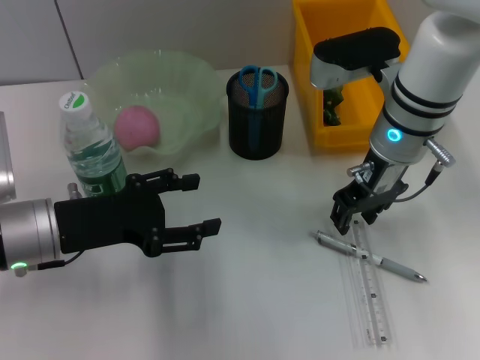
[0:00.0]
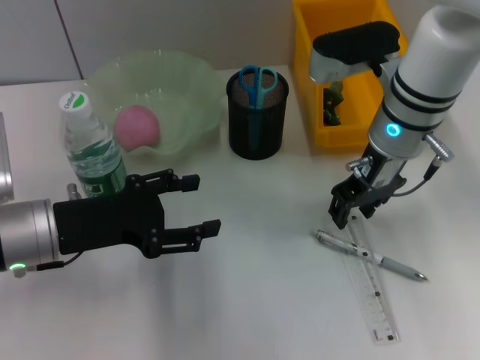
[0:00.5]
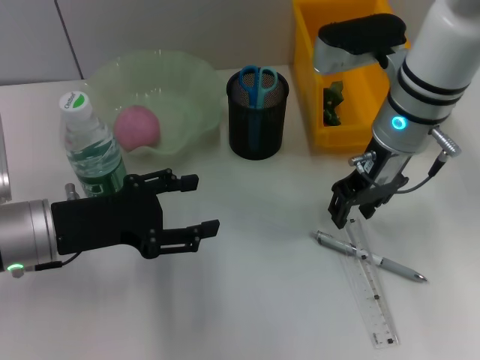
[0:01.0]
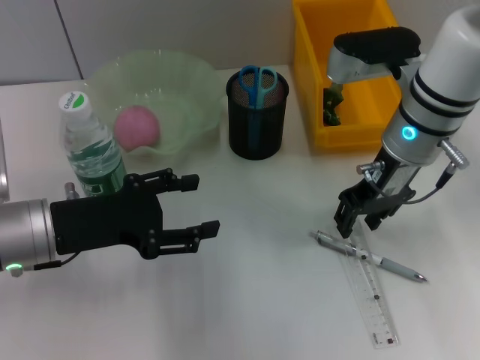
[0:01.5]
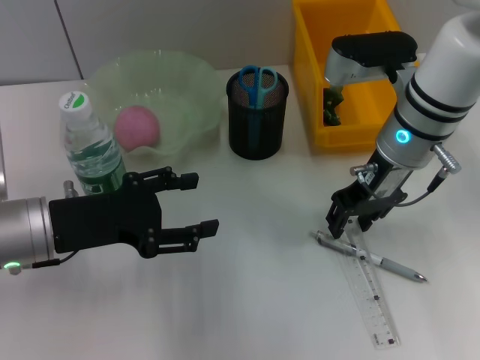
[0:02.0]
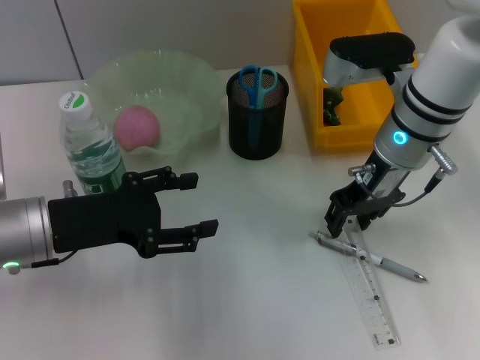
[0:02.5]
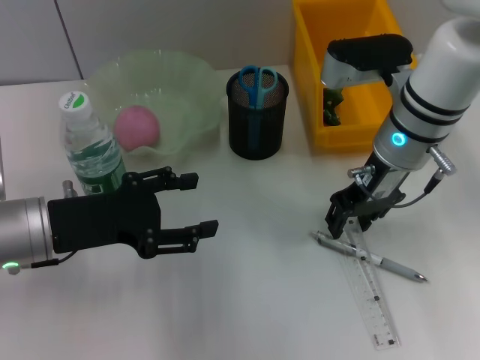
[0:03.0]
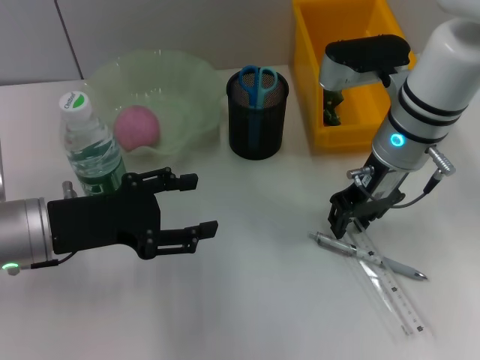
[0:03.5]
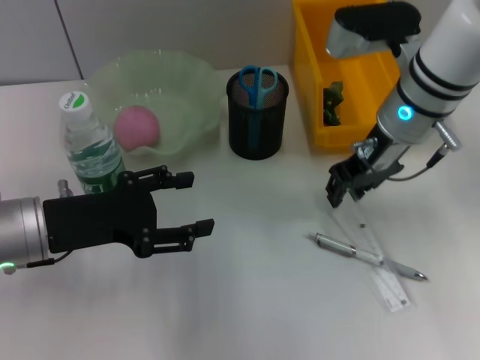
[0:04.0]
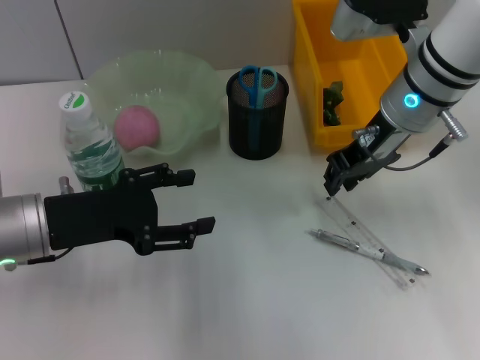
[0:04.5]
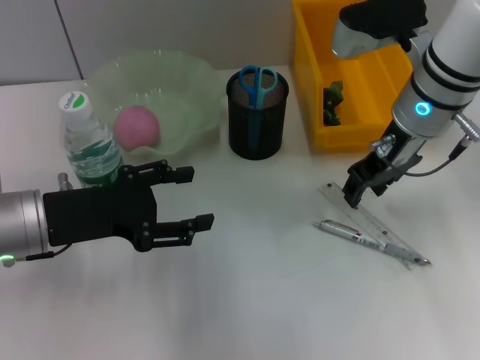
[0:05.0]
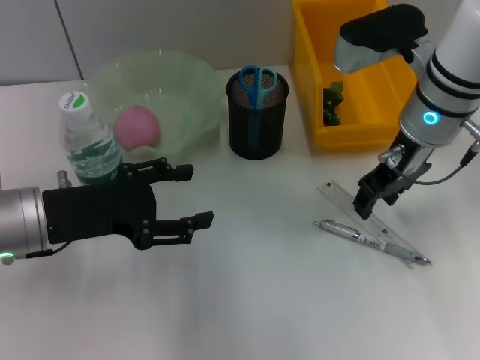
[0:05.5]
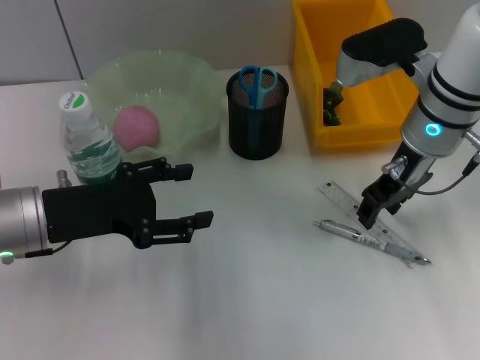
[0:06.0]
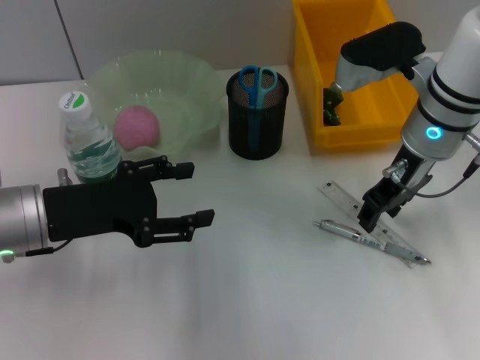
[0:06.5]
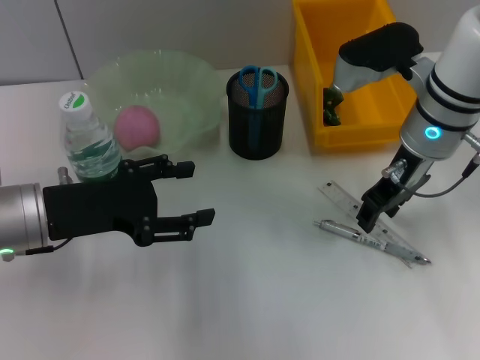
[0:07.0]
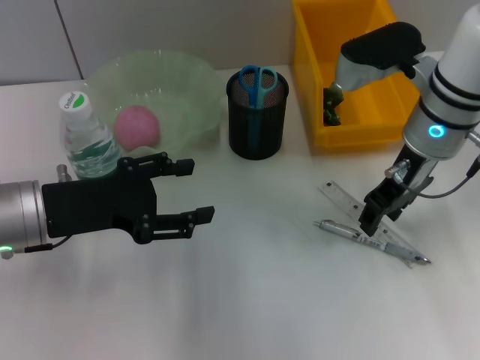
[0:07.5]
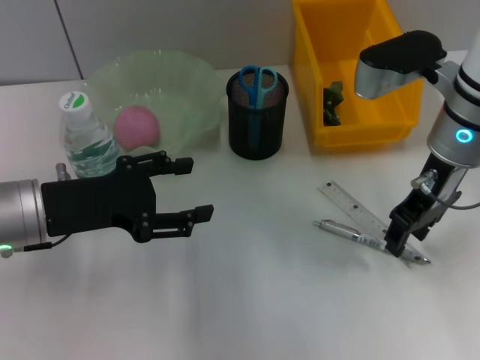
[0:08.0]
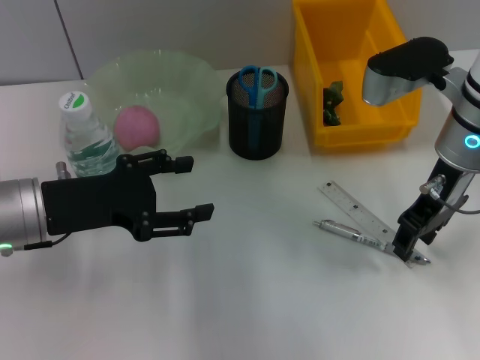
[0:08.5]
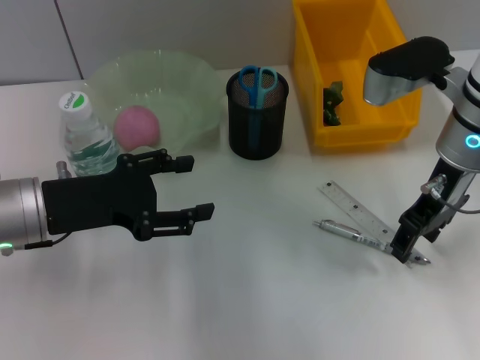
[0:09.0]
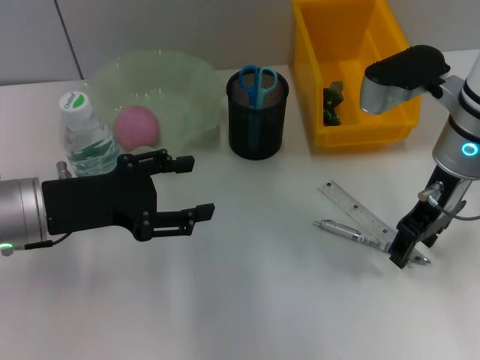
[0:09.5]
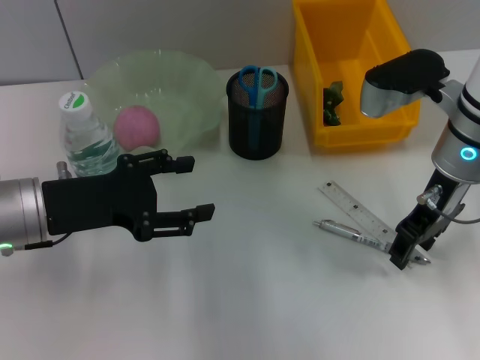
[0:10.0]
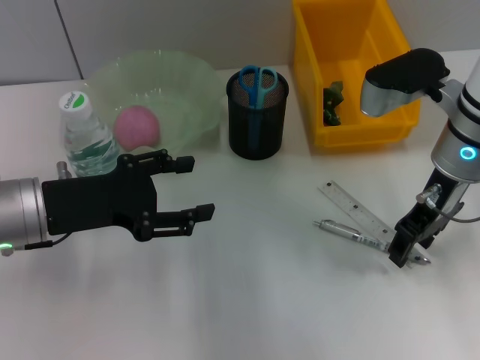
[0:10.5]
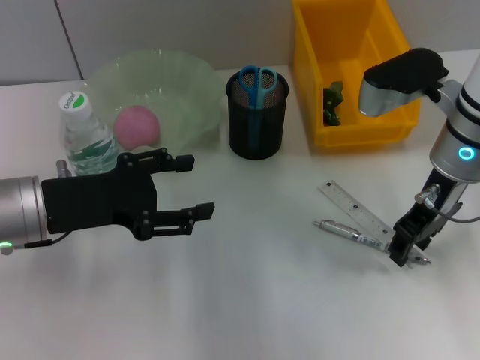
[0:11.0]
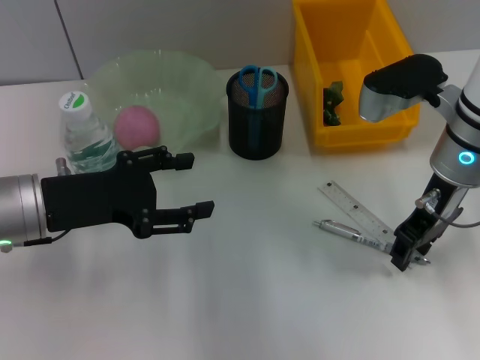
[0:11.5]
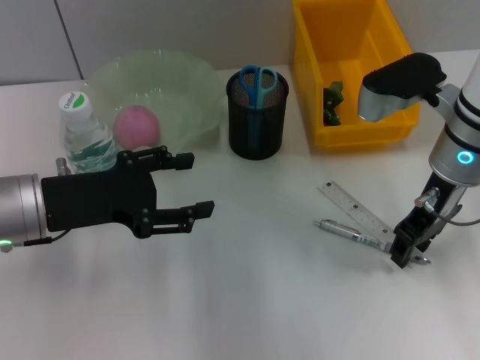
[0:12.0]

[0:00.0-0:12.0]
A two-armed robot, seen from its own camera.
0:00.0 to 0:10.0: The grippers move only a little.
0:10.0 to 0:12.0: Neither gripper changes place.

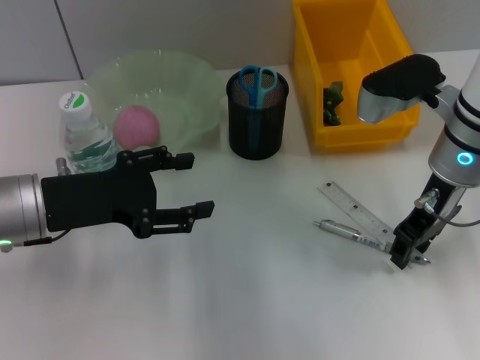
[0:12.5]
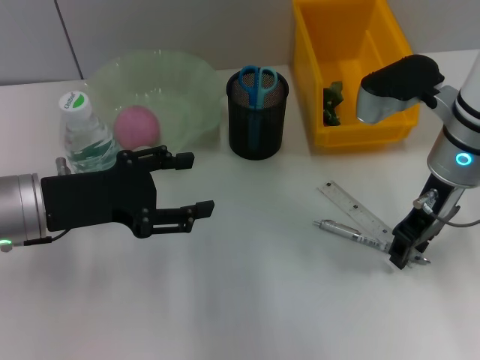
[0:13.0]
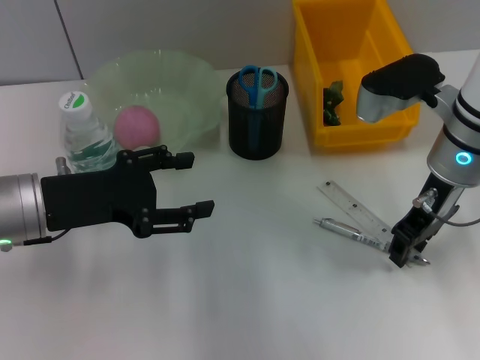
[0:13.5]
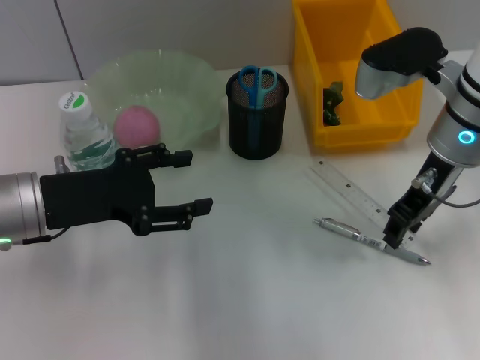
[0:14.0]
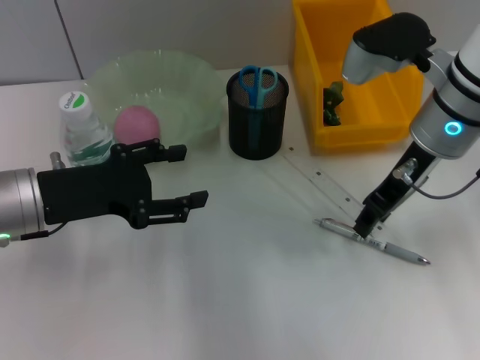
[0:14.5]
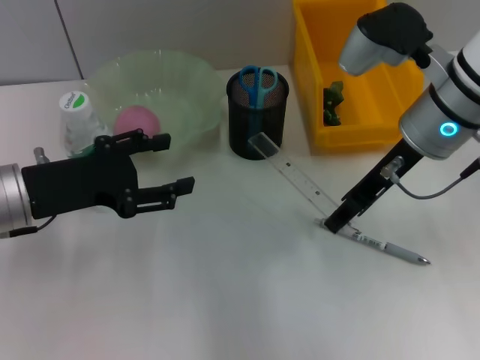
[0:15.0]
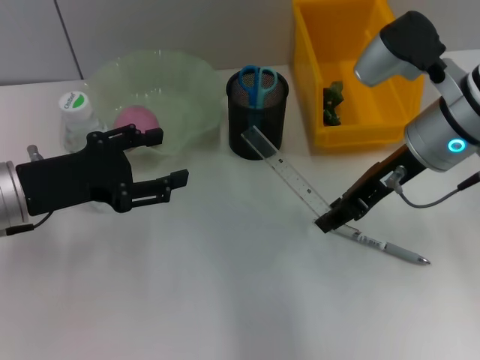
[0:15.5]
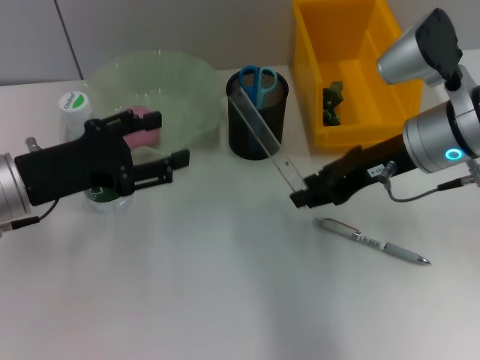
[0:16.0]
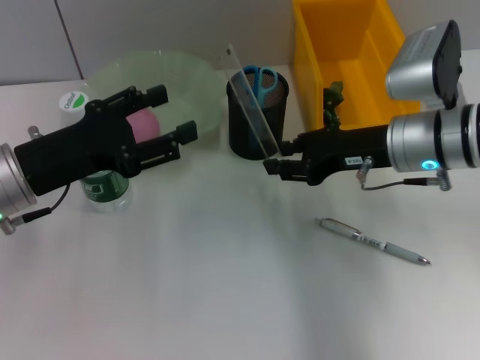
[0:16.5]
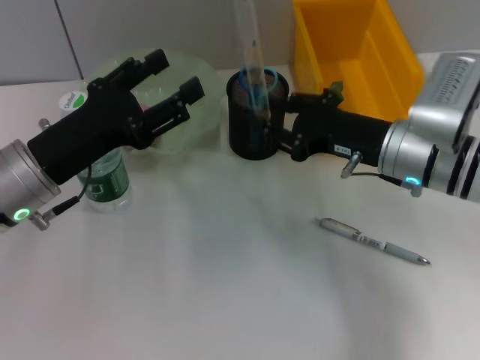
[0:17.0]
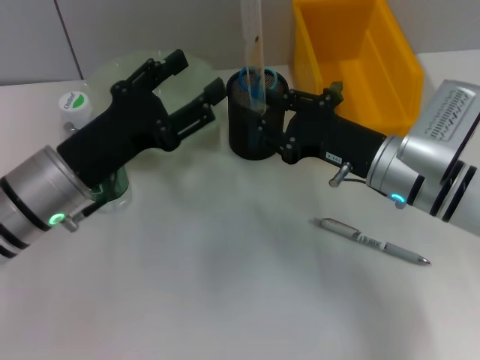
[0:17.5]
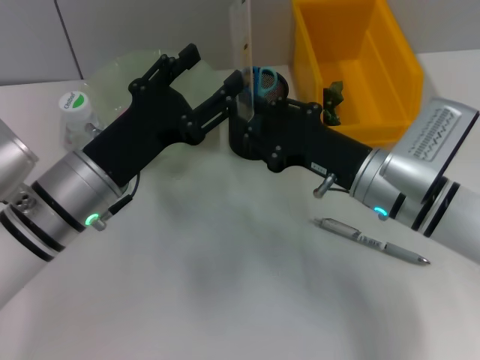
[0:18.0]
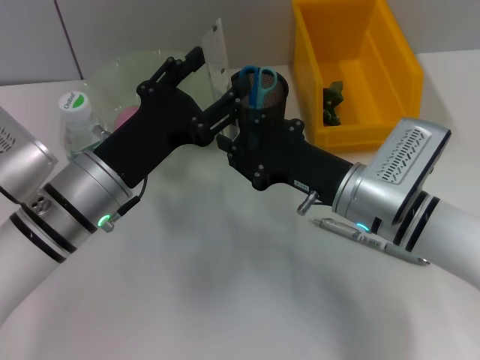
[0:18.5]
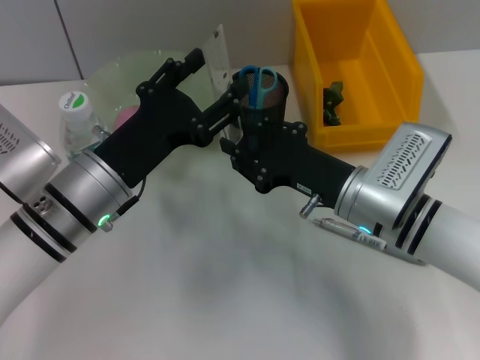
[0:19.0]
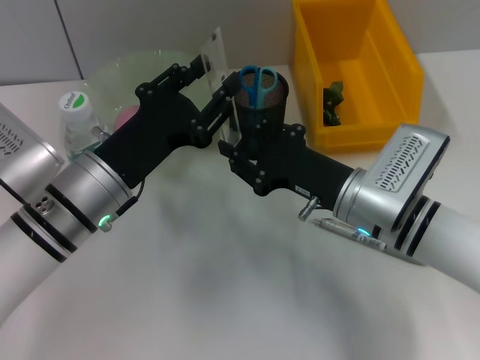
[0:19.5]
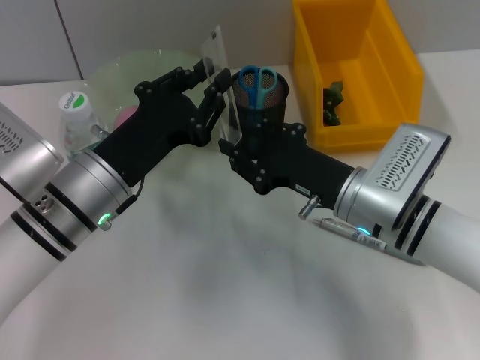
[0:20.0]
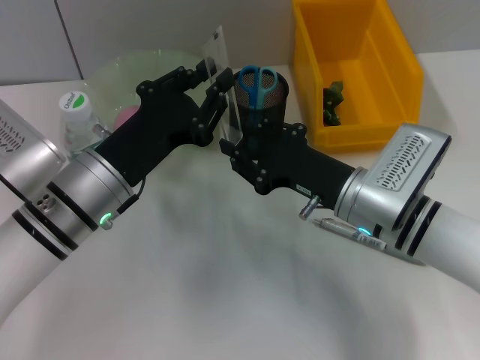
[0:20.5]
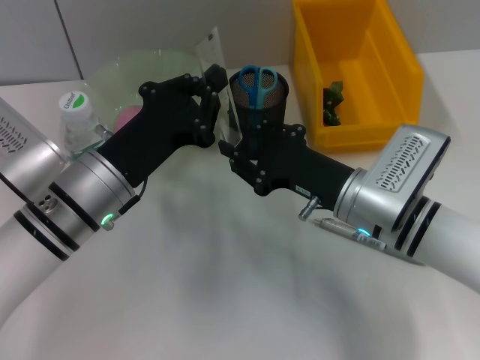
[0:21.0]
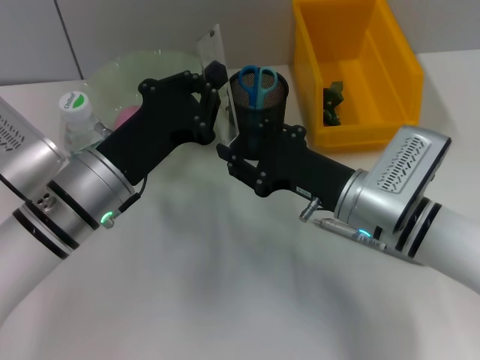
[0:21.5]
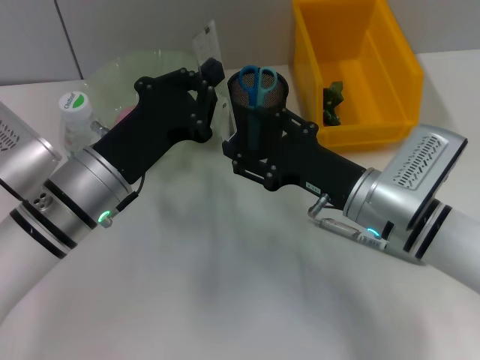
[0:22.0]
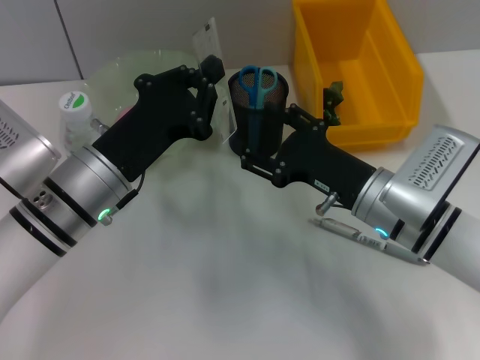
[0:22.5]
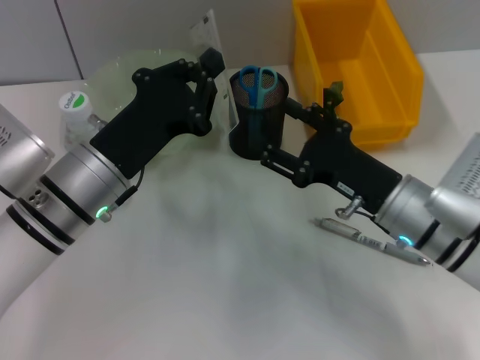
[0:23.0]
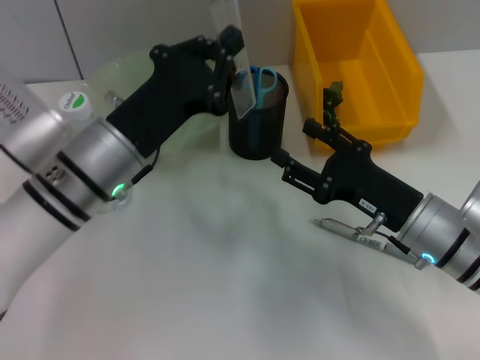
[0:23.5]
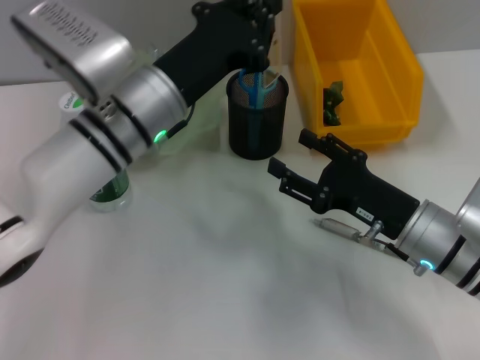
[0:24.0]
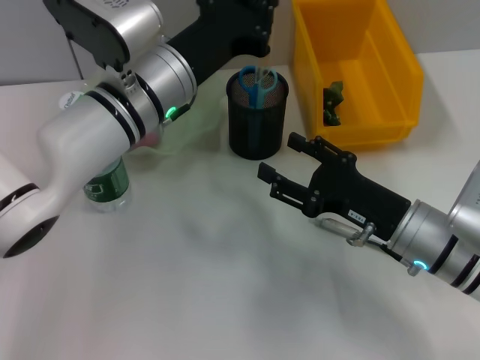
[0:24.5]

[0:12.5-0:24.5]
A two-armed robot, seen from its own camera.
Step, 0:13.5 to 0:21.5: Pass the ruler from the right hand to the left hand.
0:12.5 to 0:14.5: The grippers move only a little.
0:14.5 to 0:16.5: The right gripper moves downward, roughly 5 cm.
0:16.5 to 0:18.5: The left gripper moves to the right, approximately 10 cm. Meanwhile the right gripper shifts about 10 cm downward and to the left.
0:18.5 to 0:20.5: The left gripper closes up.
0:20.5 to 0:22.5: The right gripper opens up.
0:22.5 to 0:24.5: The left gripper moves forward and to the right, roughly 10 cm.

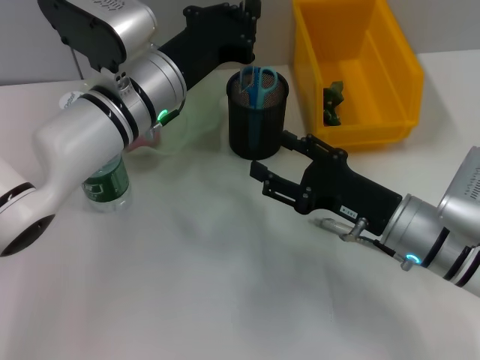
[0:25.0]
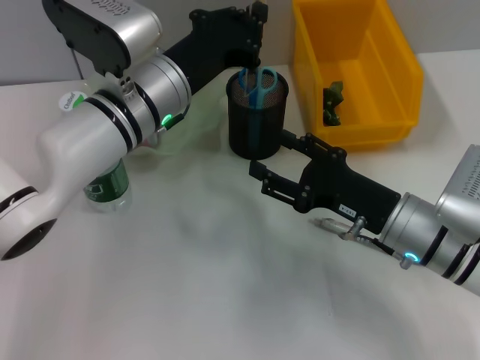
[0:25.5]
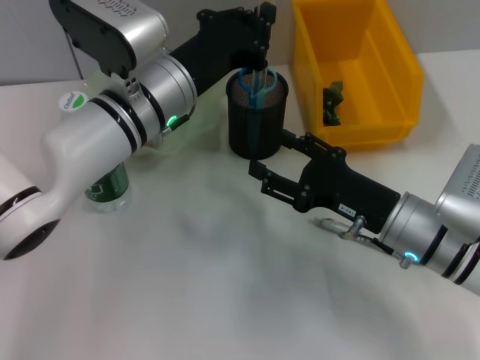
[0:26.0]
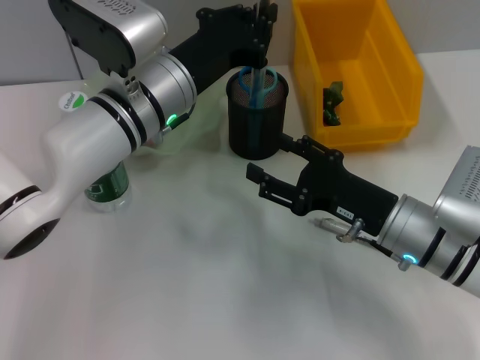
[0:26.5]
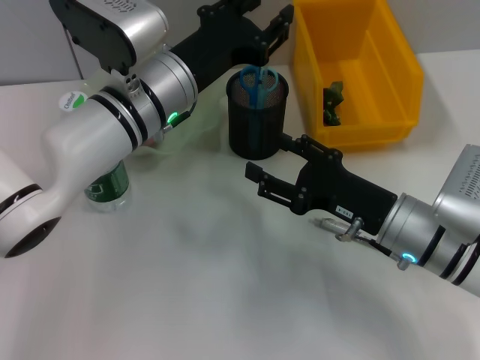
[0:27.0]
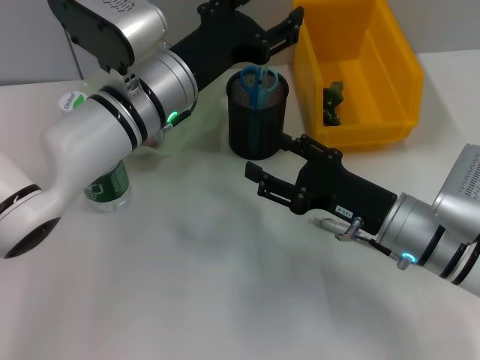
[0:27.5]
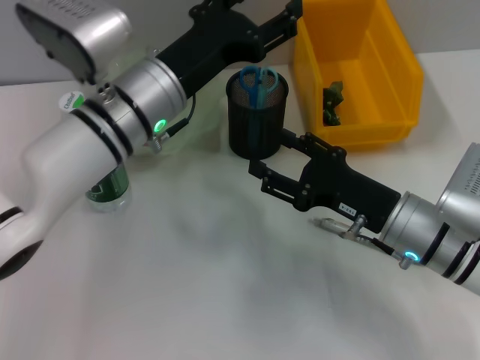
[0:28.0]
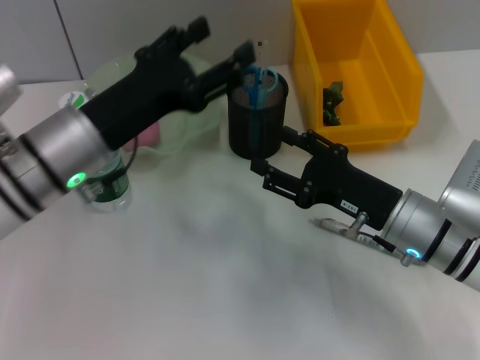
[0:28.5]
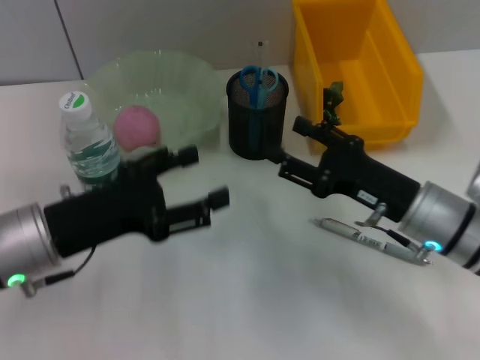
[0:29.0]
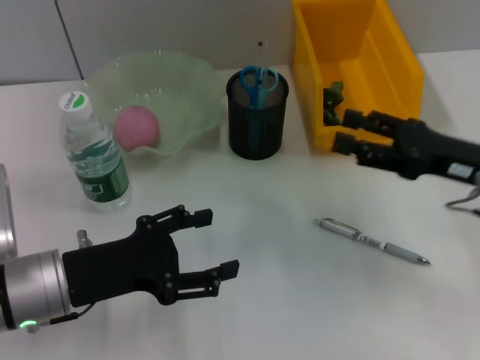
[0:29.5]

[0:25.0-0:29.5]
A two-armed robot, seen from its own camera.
Step, 0:25.0 to 0:27.0: Place the ruler into the pen holder with the left hand.
0:25.0 to 0:27.0: The left gripper opens its fingers.
0:27.0 to 0:29.5: The right gripper heads to the right and upward, covering approximately 10 cm, while the left gripper goes some 20 cm backward, to the left and downward, and opens up.
